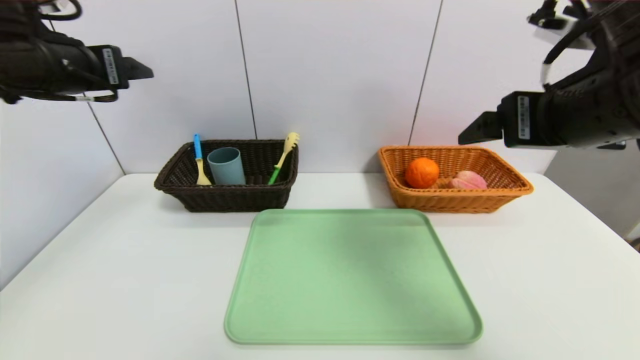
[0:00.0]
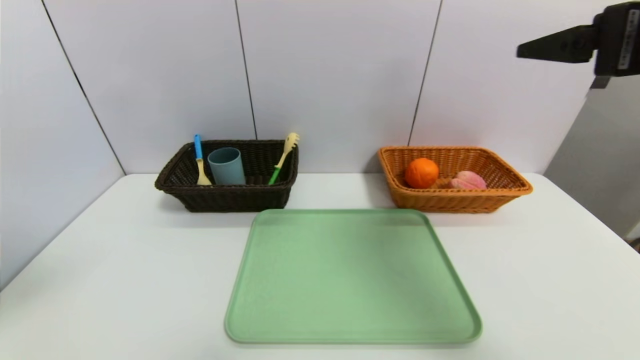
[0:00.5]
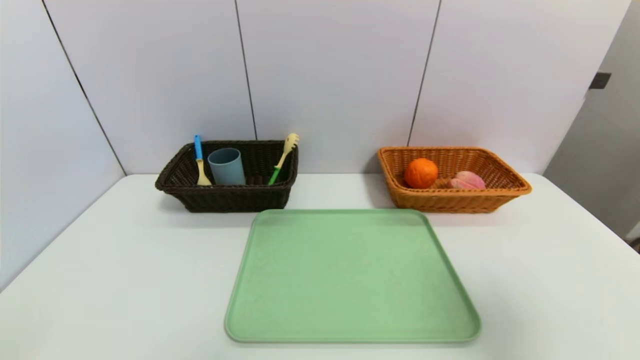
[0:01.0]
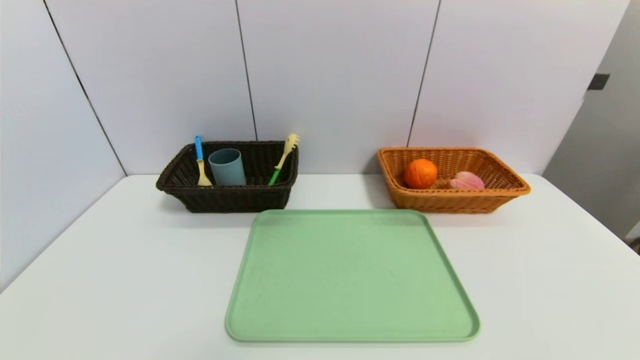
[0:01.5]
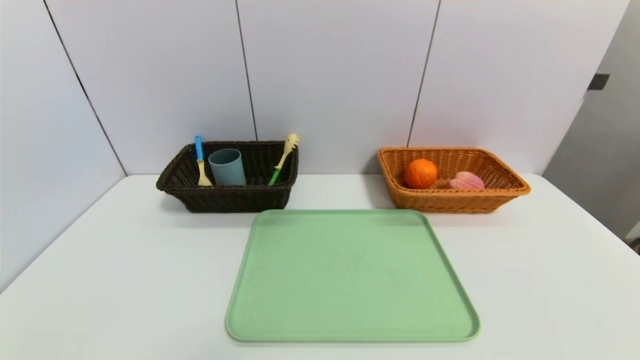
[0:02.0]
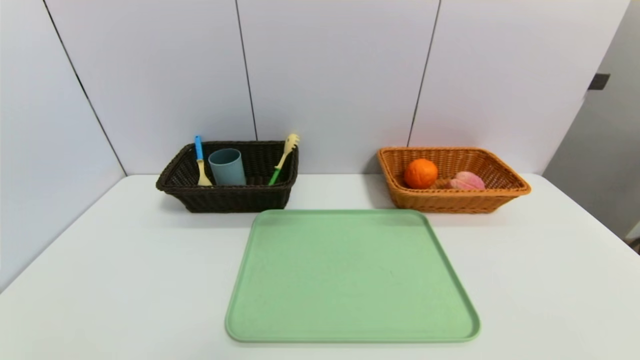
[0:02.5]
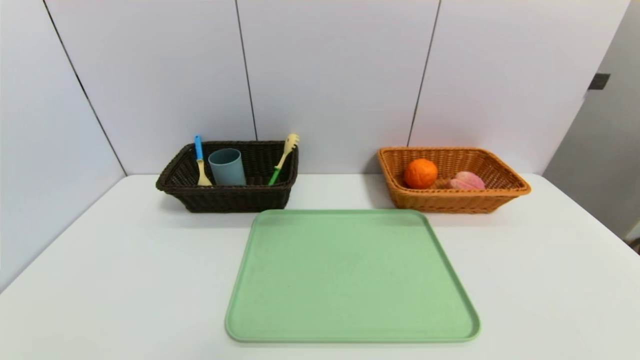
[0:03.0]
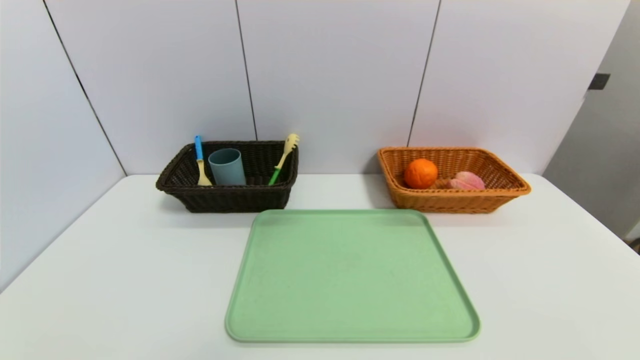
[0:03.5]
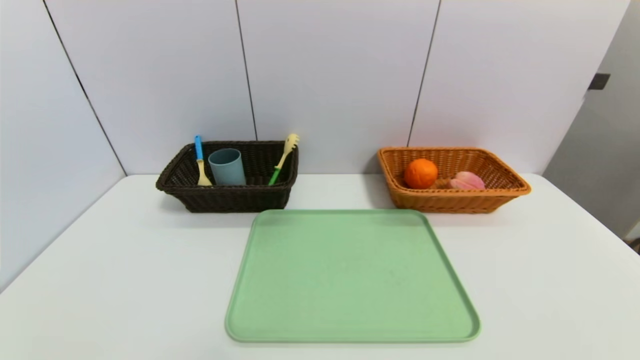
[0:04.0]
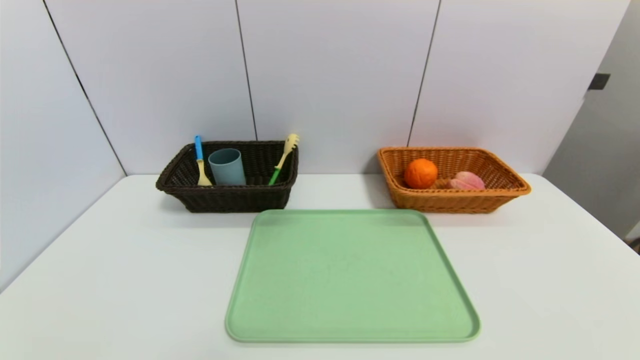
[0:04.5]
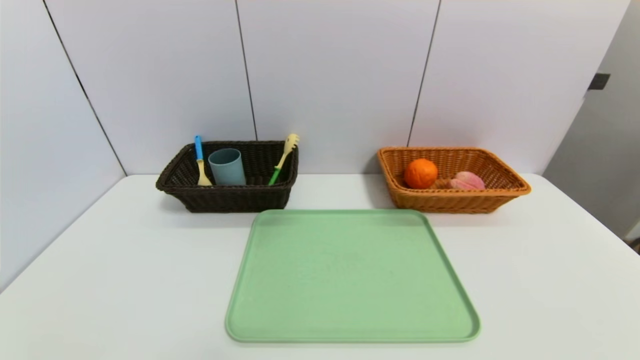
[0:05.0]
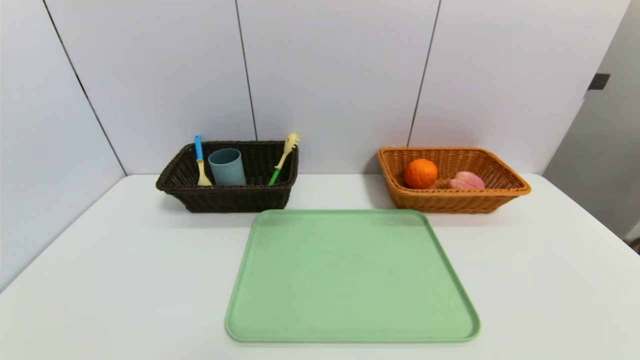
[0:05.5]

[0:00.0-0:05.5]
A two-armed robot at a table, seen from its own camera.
Task of the whole recording: place the food in the right basket with the right gripper, and place the non food items in the left basket with the left gripper.
0:00.0 to 0:02.0: The left gripper shifts approximately 40 cm backward and downward; the right gripper heads backward, downward and to the right, covering roughly 35 cm.
0:03.5 to 0:05.5: Both grippers stay put.
